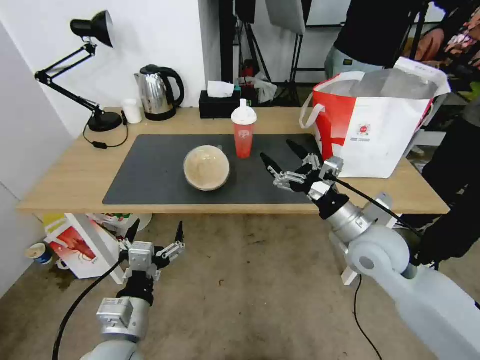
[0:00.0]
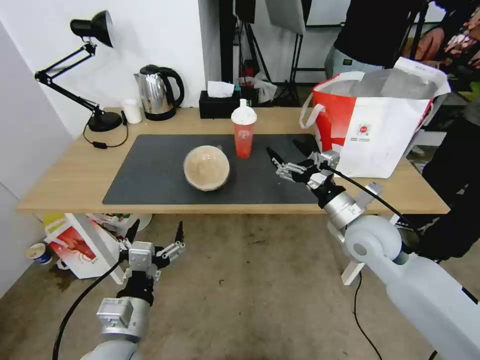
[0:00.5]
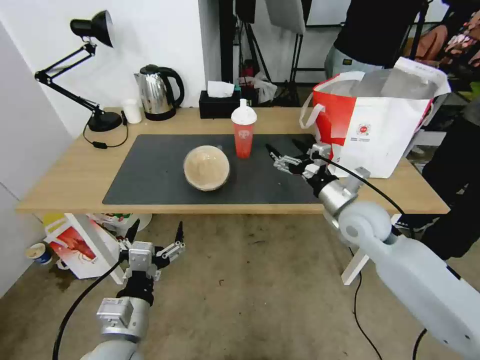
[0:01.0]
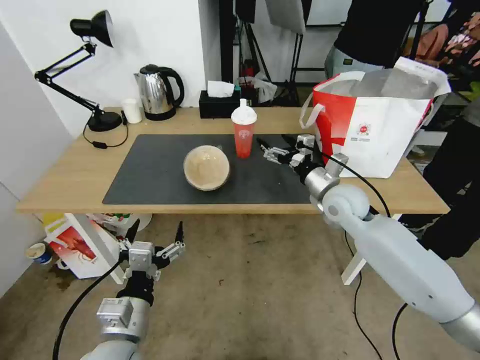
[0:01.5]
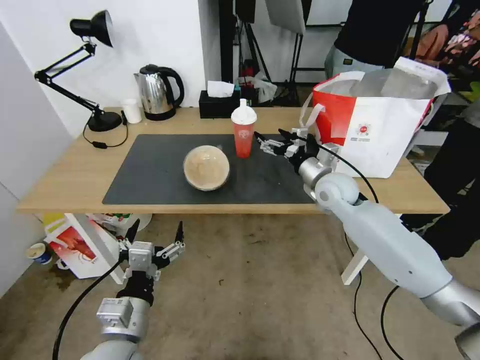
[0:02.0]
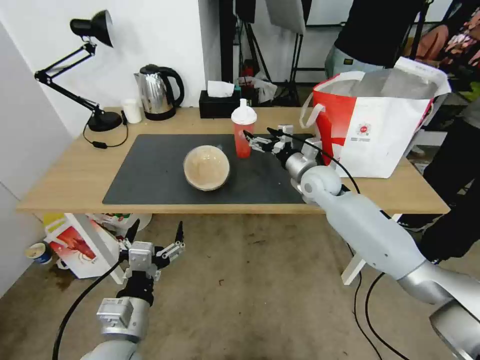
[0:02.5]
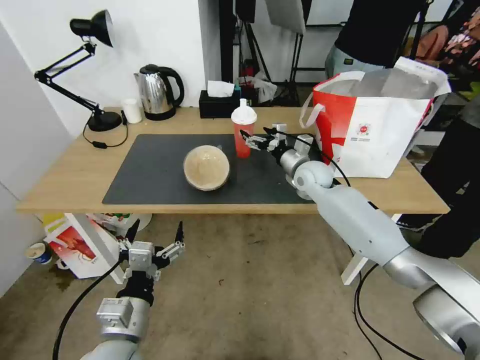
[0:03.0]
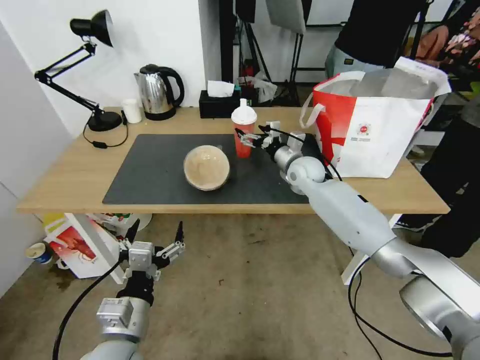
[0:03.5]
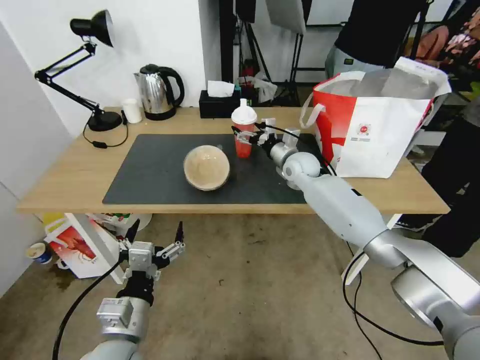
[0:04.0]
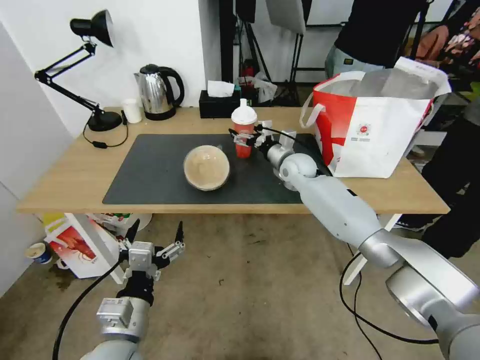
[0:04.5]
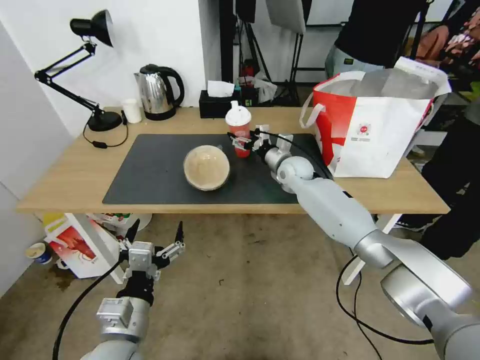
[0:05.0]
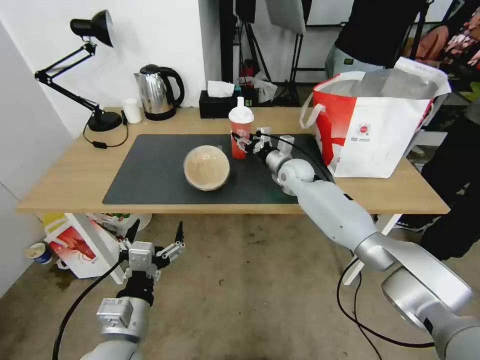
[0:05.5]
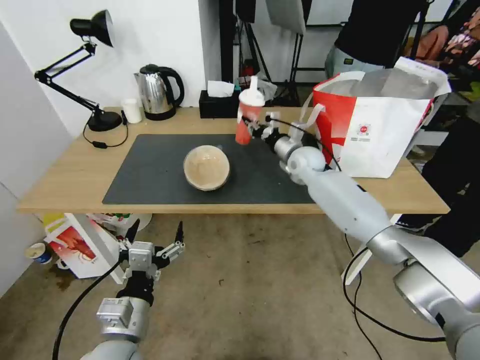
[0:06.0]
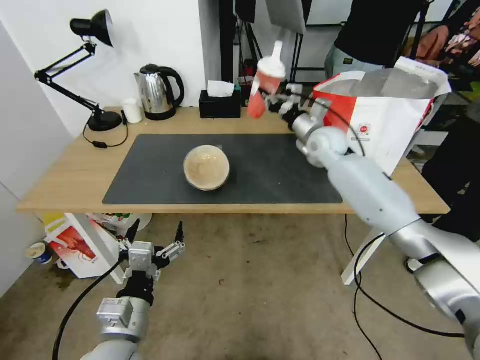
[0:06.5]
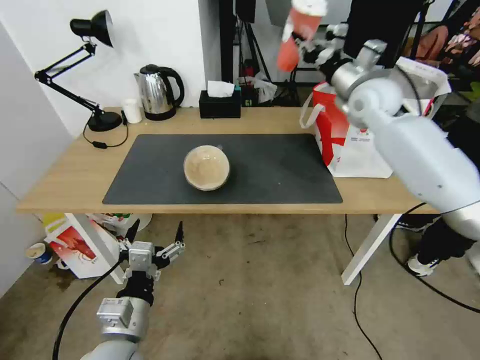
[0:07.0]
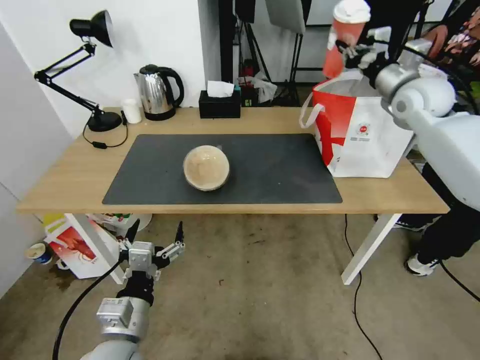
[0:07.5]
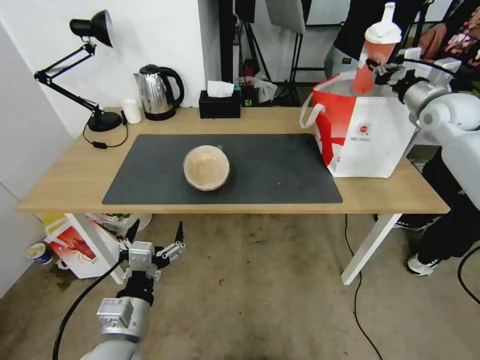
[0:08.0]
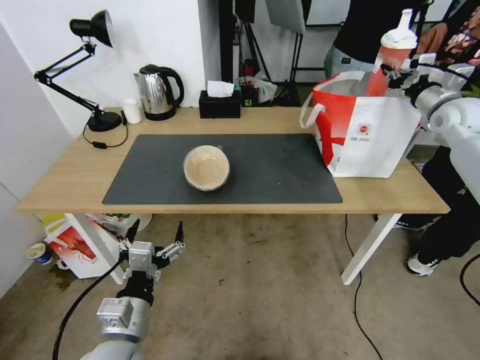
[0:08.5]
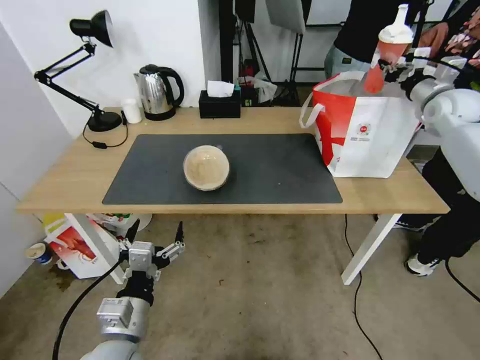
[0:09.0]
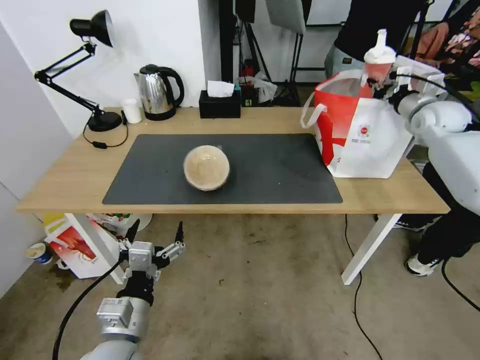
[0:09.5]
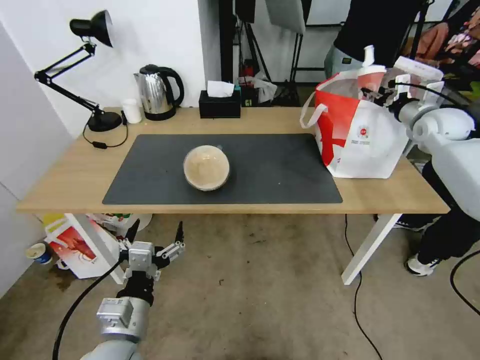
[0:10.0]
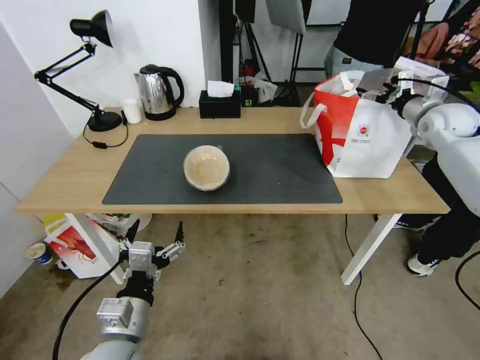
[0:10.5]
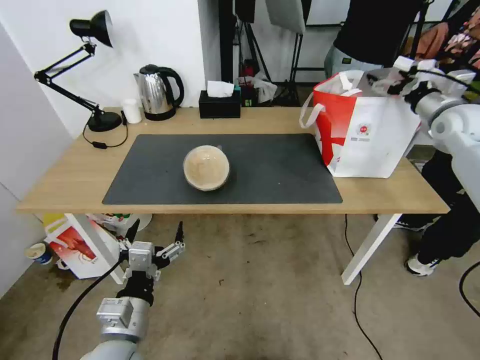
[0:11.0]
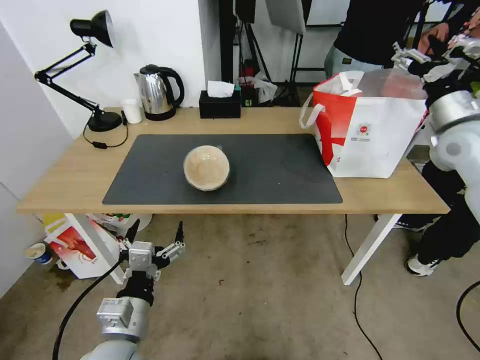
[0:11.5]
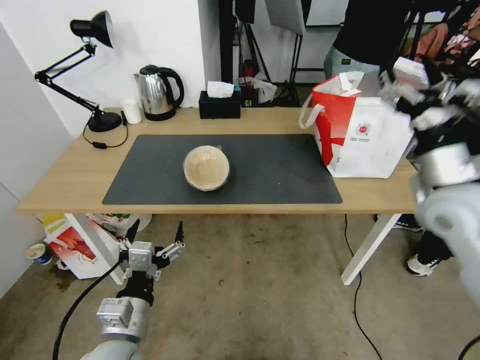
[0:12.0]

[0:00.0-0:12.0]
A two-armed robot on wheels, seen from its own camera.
Task of the whole recording: Pick up the trash from the table and place it into the takeout bag.
0:00.0 to 0:02.0: The right gripper moves forward, about 15 cm.
0:02.0 to 0:04.0: The right gripper is displaced forward and to the left by about 10 cm.
0:04.0 to 0:06.0: The right gripper closes.
0:06.0 to 0:08.0: The right gripper goes about 30 cm to the right and upward.
0:08.0 to 0:10.0: The right gripper changes place by about 5 cm.
0:10.0 to 0:12.0: The right gripper goes roughly 30 cm backward and to the left, and opens its fingers.

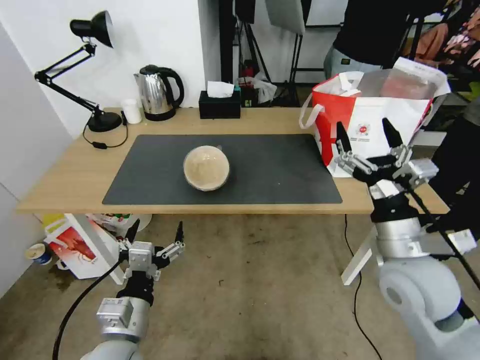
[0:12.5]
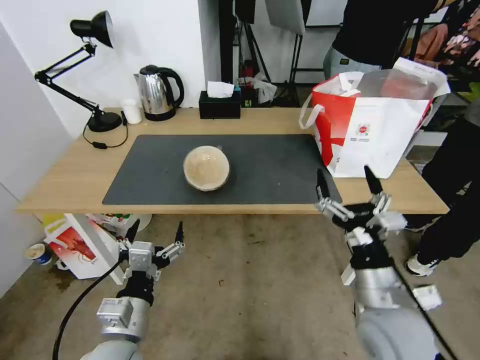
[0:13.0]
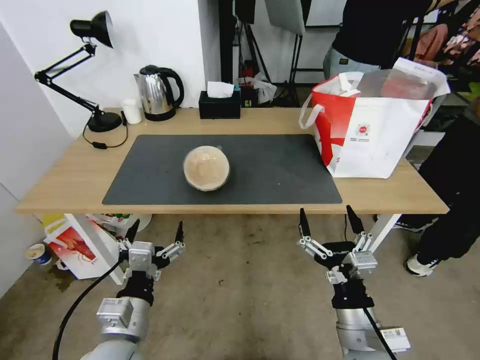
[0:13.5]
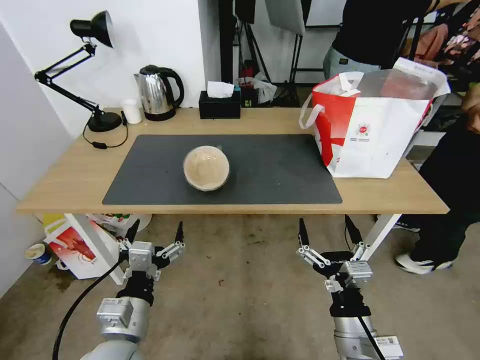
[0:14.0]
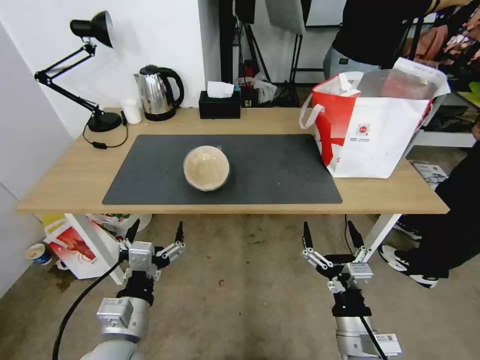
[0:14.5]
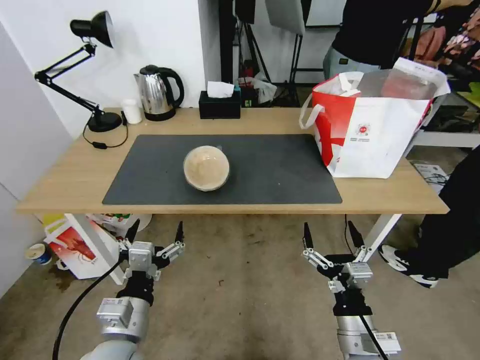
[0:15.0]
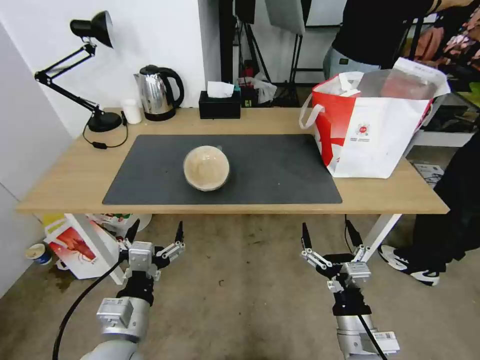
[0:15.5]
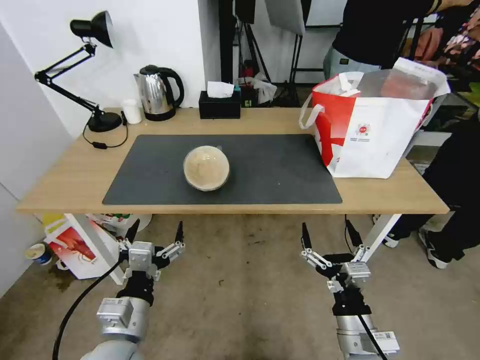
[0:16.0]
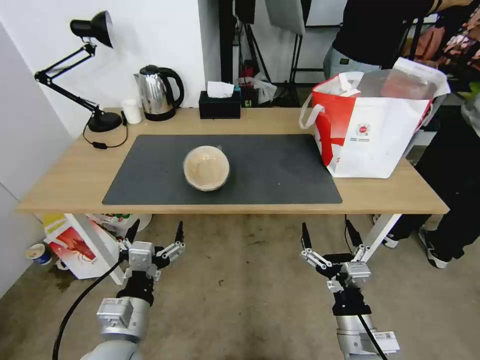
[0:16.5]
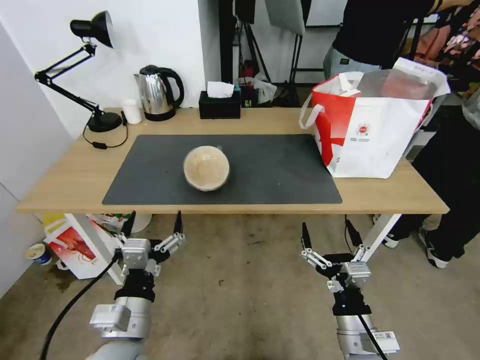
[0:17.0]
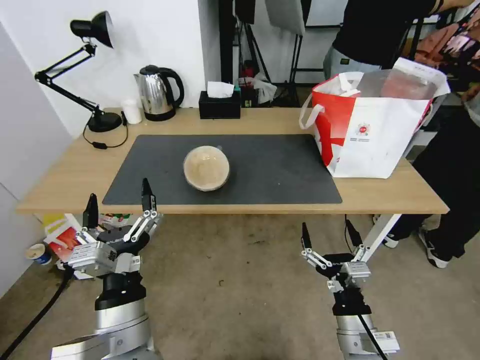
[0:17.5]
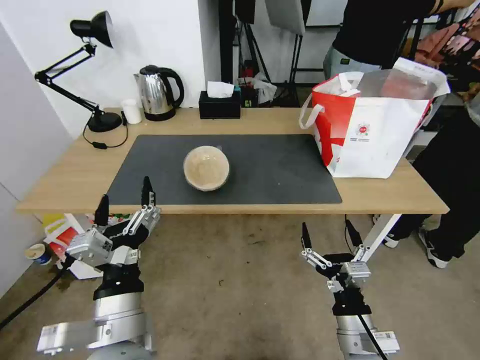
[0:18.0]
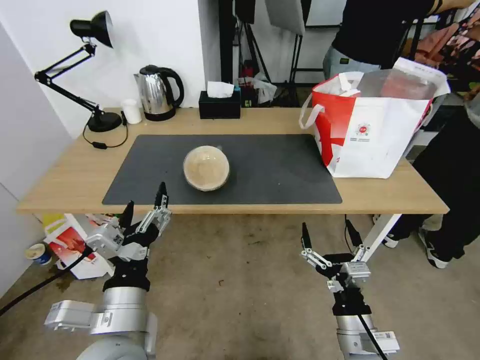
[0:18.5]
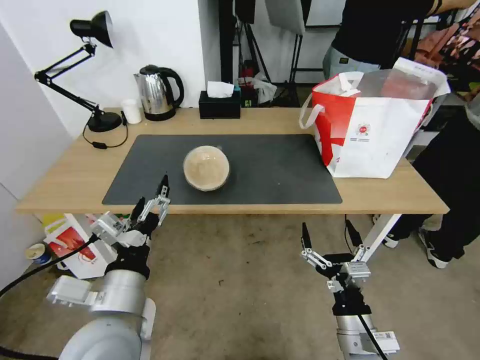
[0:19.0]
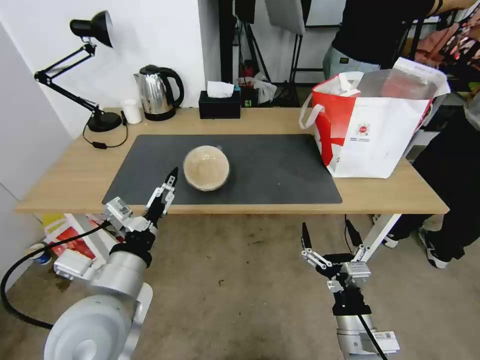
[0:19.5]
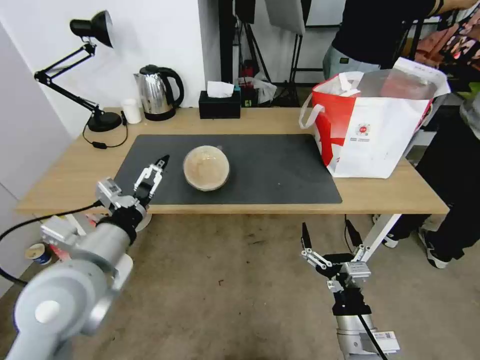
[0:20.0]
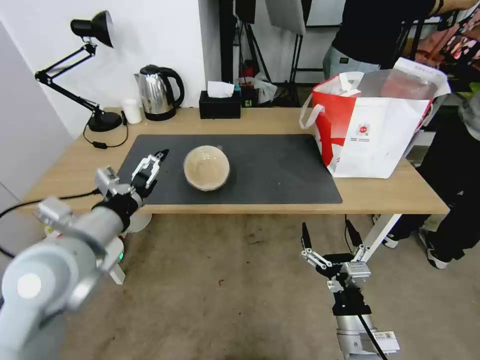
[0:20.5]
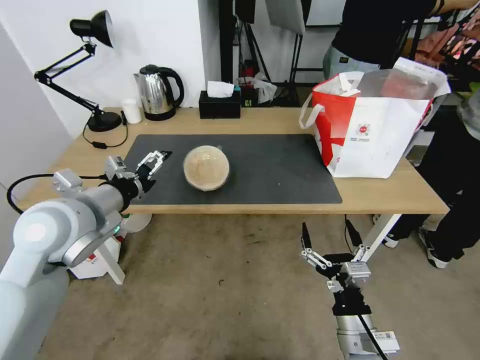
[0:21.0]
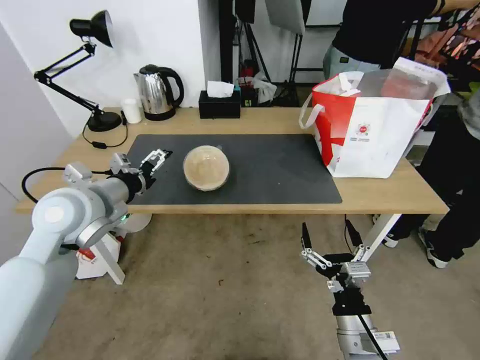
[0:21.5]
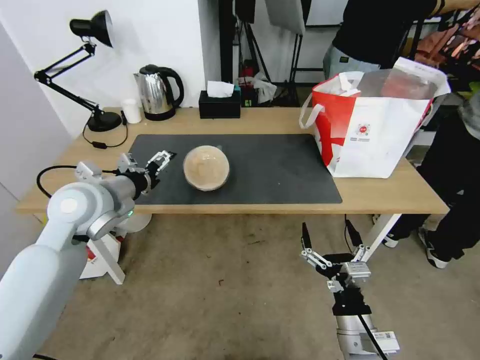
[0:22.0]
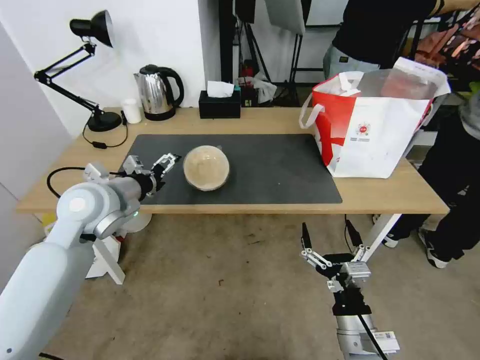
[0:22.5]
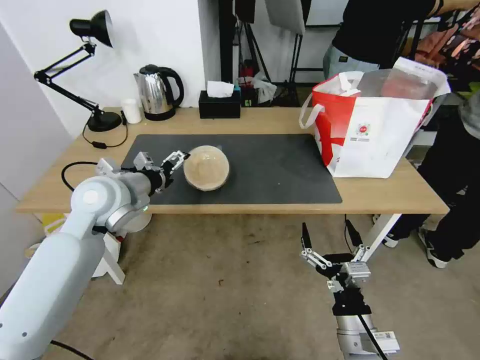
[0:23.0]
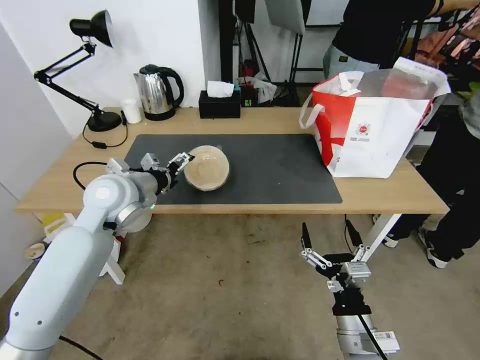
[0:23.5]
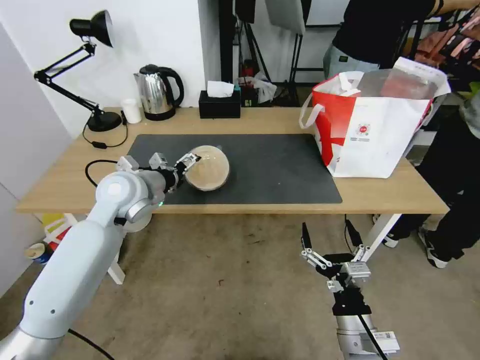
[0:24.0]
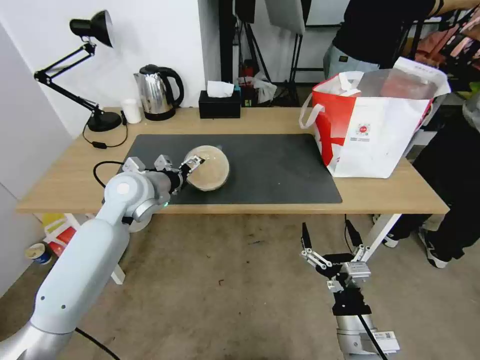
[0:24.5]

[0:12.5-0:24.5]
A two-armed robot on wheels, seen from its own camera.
Task of the whole recording: Pick up the trash from the table and place it into the takeout bag.
0:12.5 to 0:14.5: The right gripper travels downward, backward and to the left by about 20 cm.
0:14.5 to 0:16.5: Both grippers stay put.
0:16.5 to 0:18.5: The left gripper goes roughly 5 cm upward.
0:18.5 to 0:20.5: The left gripper is displaced forward, upward and to the left by roughly 15 cm.
0:20.5 to 0:22.5: The left gripper is displaced forward by roughly 10 cm.
0:22.5 to 0:24.5: The left gripper heads forward, covering roughly 5 cm.

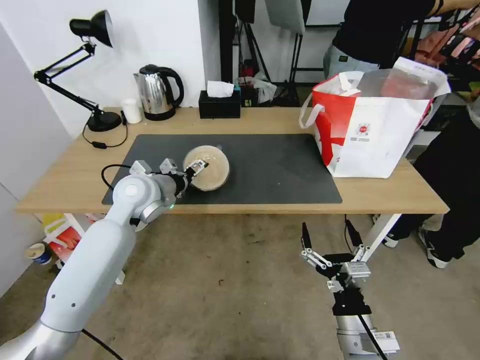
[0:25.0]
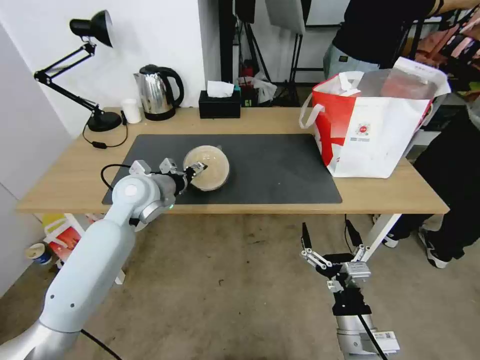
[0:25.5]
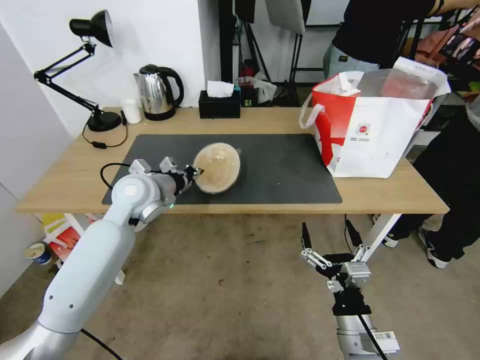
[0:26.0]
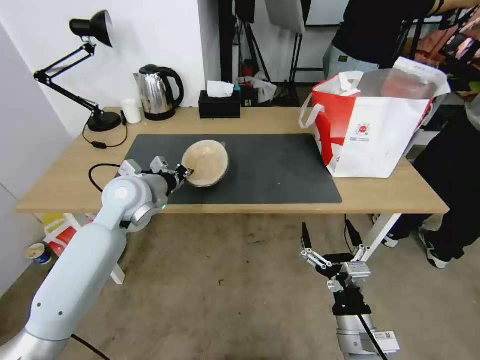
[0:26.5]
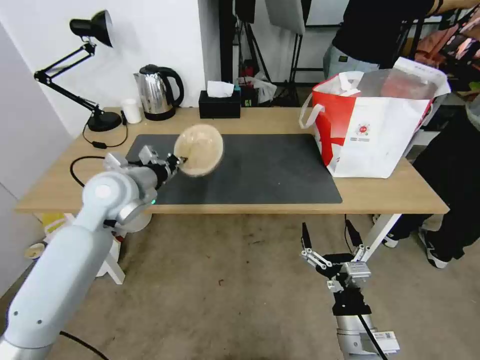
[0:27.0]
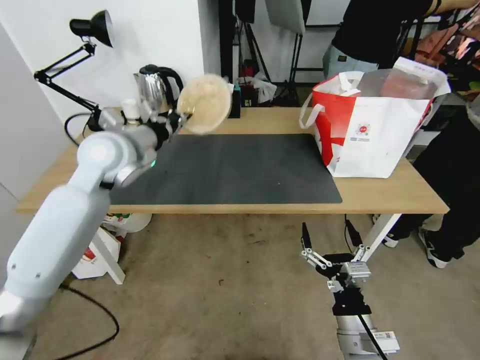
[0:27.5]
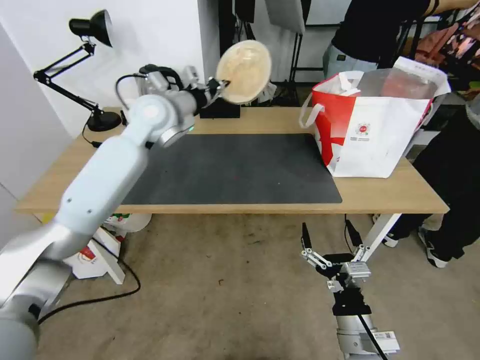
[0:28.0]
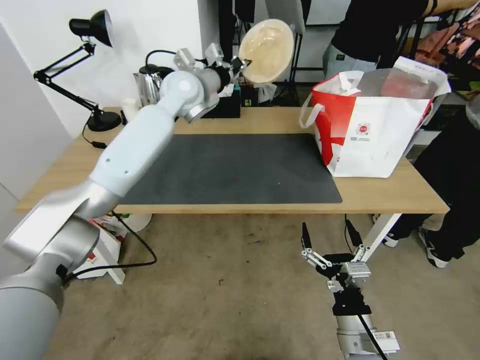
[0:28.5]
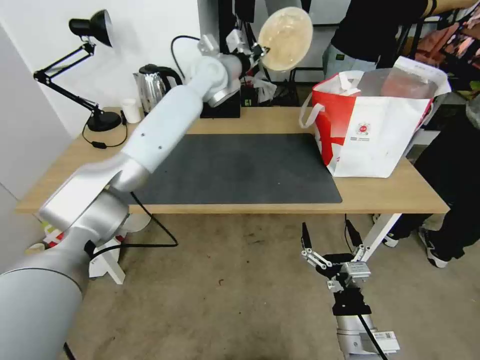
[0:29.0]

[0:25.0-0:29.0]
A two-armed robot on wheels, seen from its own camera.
Task of the whole recording: Pick up the trash from the table and place it into the takeout bag.
0:25.0 to 0:27.0: The left gripper ends up roughly 5 cm from where it was, and closes its fingers.
0:27.0 to 0:29.0: The left gripper moves forward, to the right and upward, some 35 cm.
